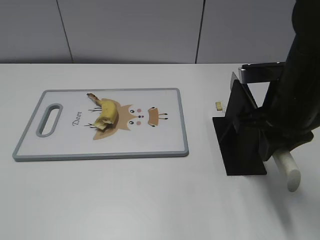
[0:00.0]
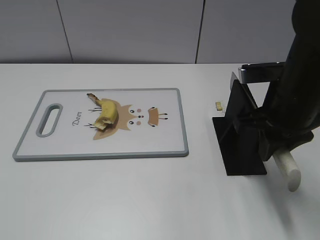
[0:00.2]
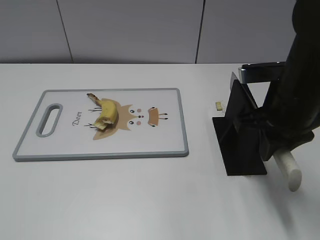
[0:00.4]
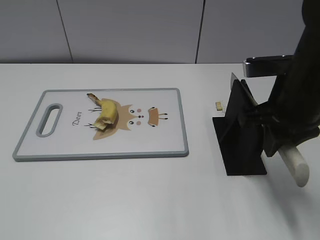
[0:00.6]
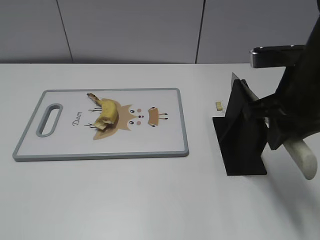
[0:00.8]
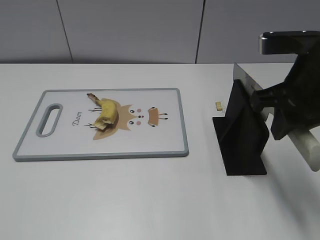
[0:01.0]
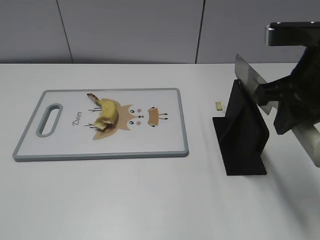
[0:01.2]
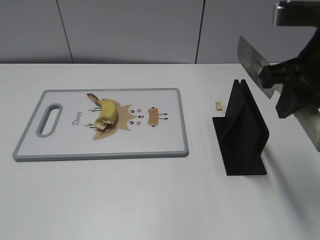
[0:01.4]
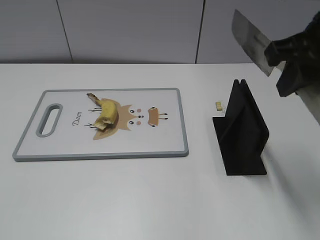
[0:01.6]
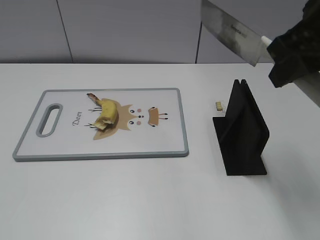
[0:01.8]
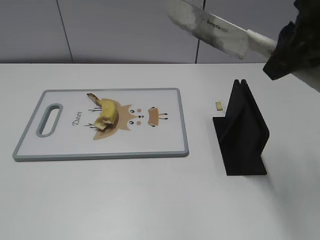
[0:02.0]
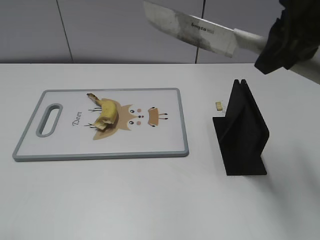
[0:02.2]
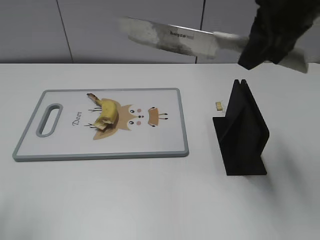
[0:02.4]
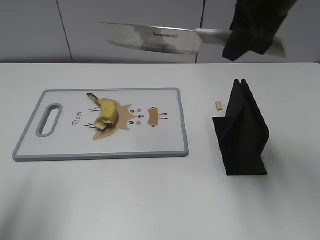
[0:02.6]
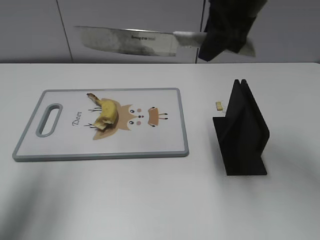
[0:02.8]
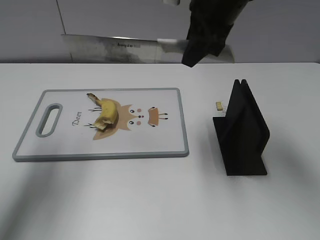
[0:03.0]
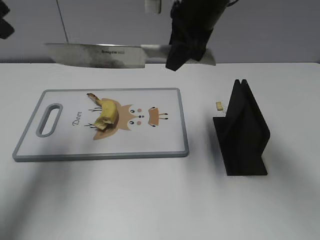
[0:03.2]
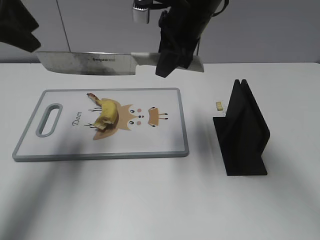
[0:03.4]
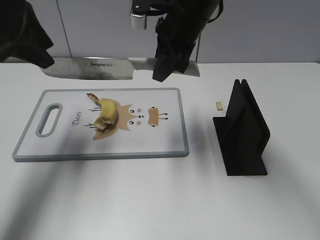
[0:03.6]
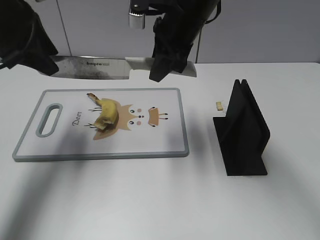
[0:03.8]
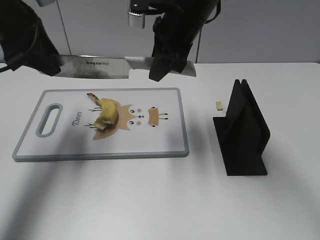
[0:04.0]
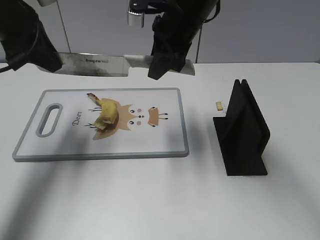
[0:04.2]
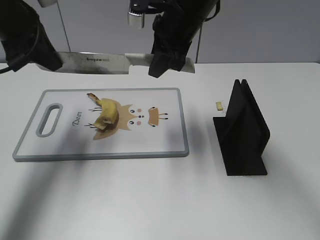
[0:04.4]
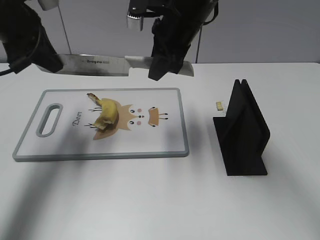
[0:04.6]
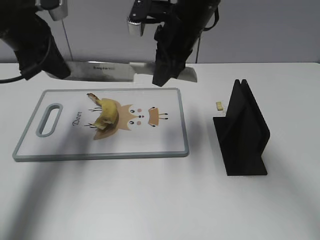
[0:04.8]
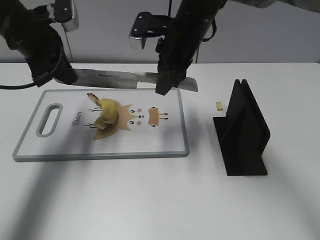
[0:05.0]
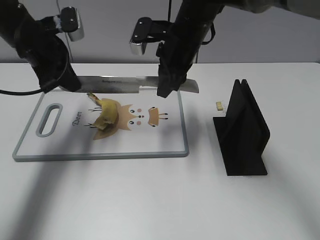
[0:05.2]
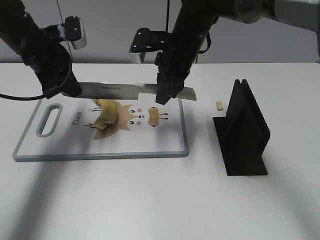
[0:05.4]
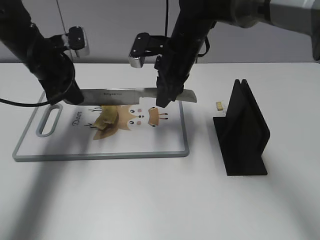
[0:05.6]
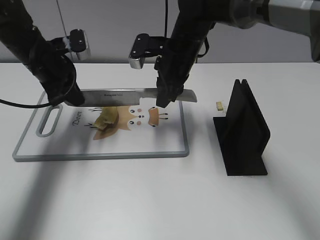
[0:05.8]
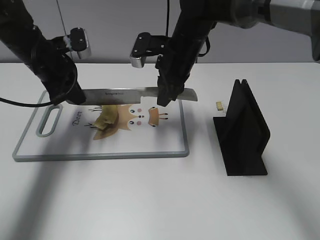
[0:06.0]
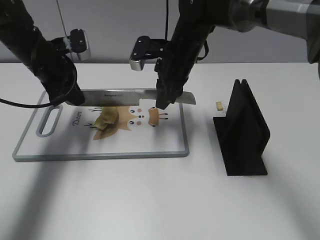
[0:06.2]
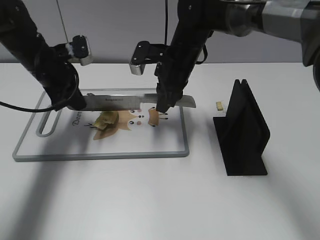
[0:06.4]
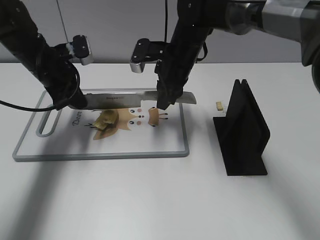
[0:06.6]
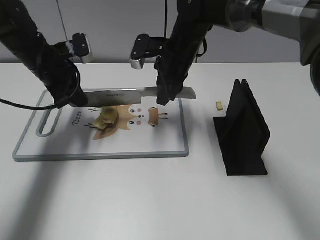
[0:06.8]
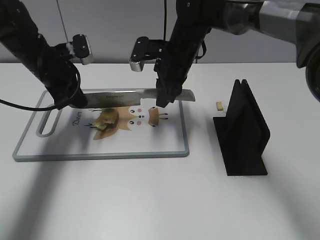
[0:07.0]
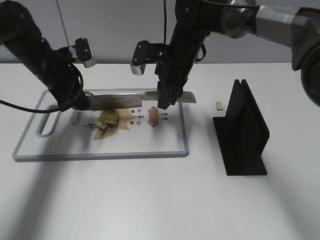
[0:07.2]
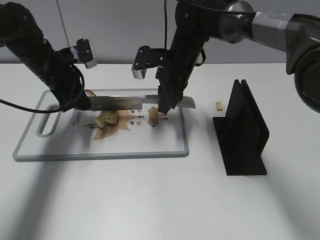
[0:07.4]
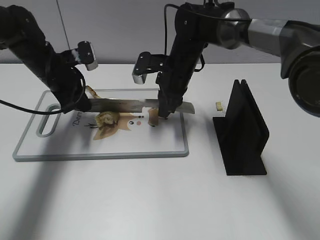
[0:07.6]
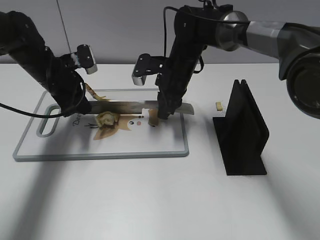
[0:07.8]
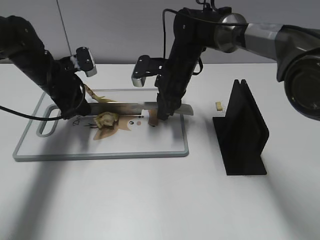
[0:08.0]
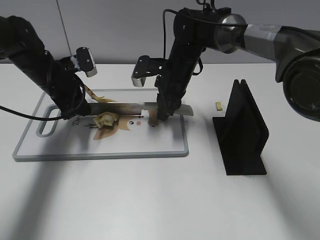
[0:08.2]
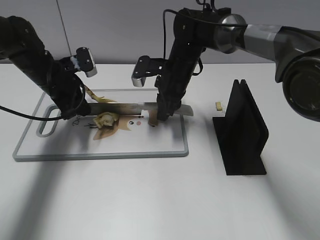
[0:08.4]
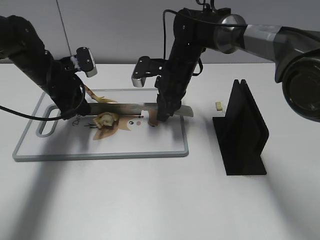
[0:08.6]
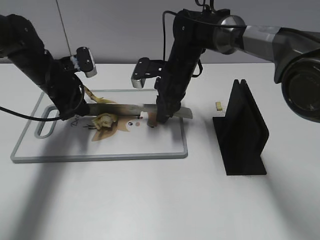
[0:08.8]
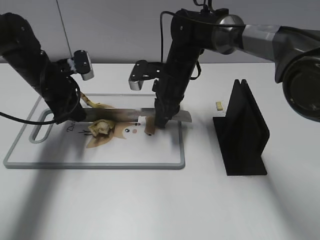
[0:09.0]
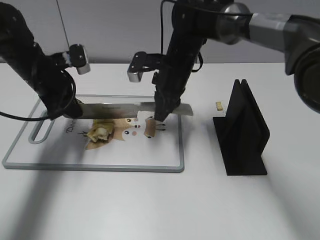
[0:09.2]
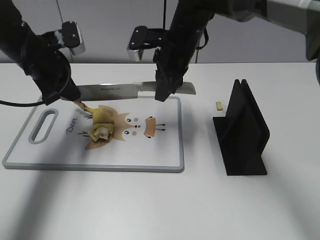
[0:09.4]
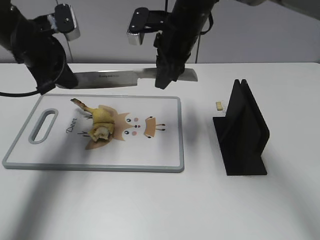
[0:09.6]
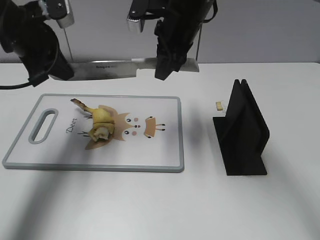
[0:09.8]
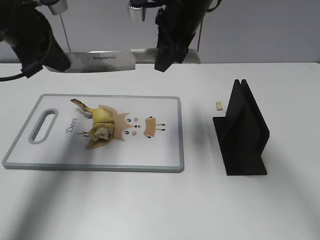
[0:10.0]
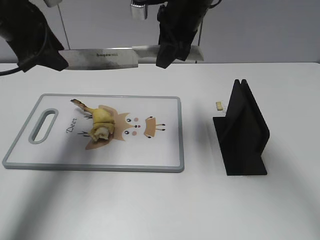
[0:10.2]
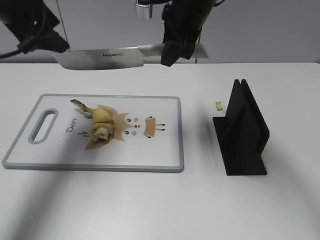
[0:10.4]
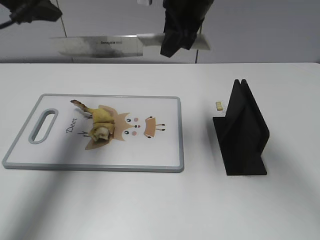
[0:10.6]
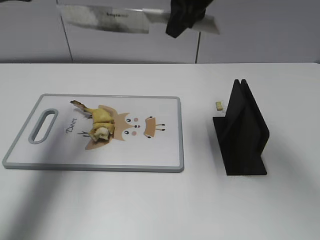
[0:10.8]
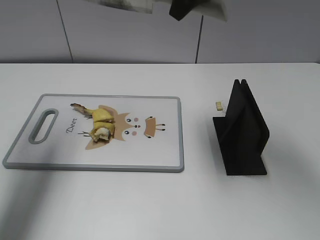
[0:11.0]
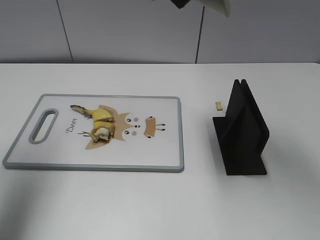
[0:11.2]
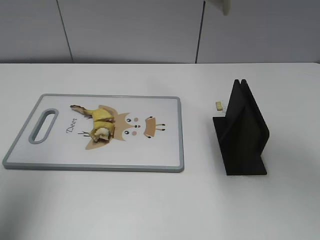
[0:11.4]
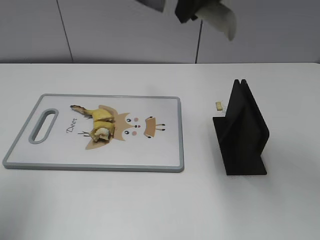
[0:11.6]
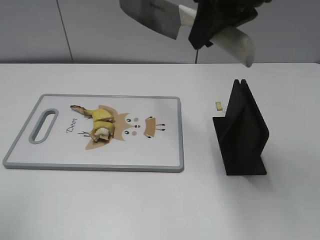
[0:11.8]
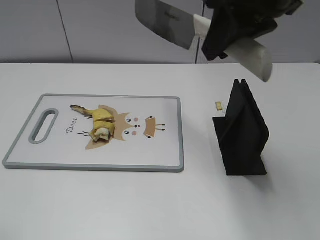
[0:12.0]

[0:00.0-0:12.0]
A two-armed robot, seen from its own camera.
Task of the whole recording: cut banana.
Step, 0:02.0 to 0:06.8: Lift the knife with your right hand.
0:00.0 to 0:01.6: The right gripper heads upward, covering some 10 cm.
0:01.6 to 0:03.0: The right gripper shifts about 15 cm forward and to the left. Meanwhile the left gripper heads forward, covering about 25 cm.
0:03.0 to 0:04.4: The right gripper shifts about 5 cm to the left; the left gripper shifts roughly 15 cm forward, downward and to the right, and closes its fingers.
0:04.4 to 0:06.0: Both grippers move downward, about 10 cm.
0:06.0 to 0:07.6: The right gripper goes some 5 cm downward.
0:09.0 to 0:10.4: The two grippers go about 15 cm upward. The left gripper opens.
0:10.4 to 0:12.0: The left gripper shifts some 25 cm backward. Meanwhile the right gripper shifts approximately 15 cm backward, upward and to the right.

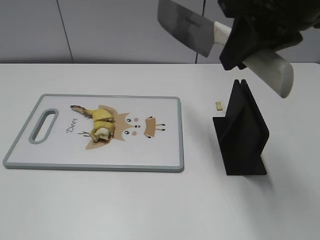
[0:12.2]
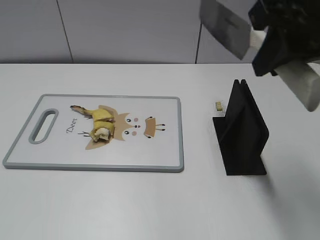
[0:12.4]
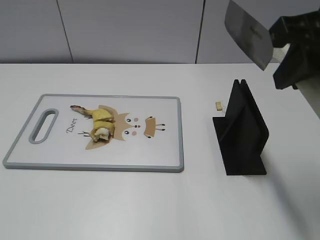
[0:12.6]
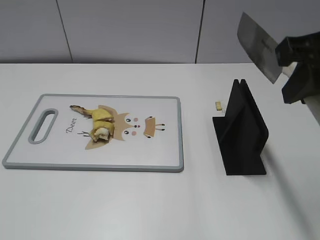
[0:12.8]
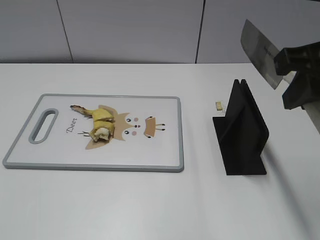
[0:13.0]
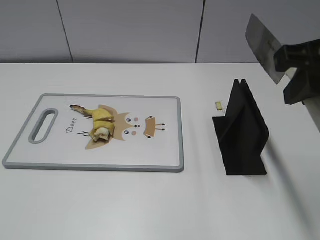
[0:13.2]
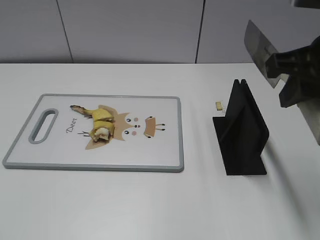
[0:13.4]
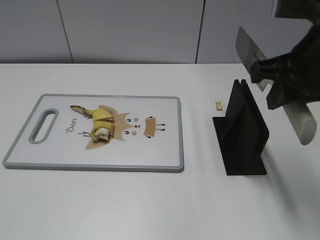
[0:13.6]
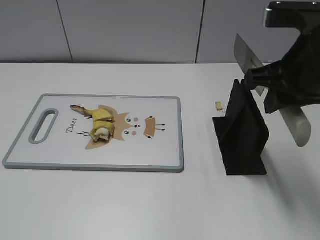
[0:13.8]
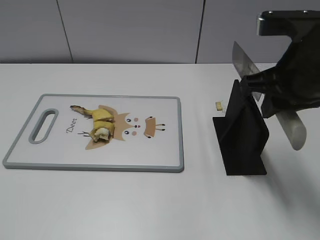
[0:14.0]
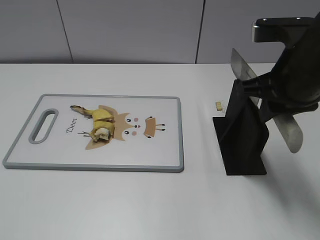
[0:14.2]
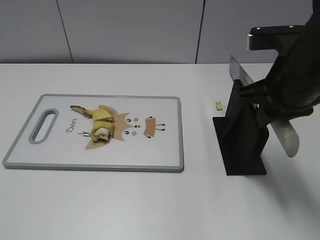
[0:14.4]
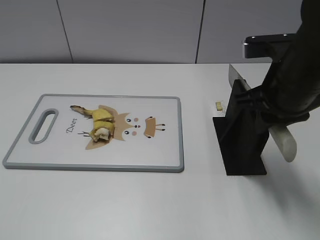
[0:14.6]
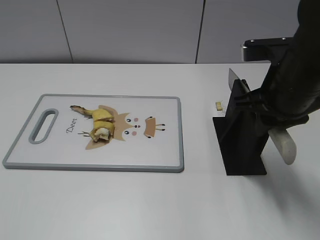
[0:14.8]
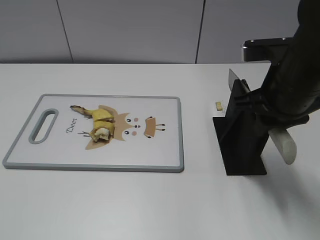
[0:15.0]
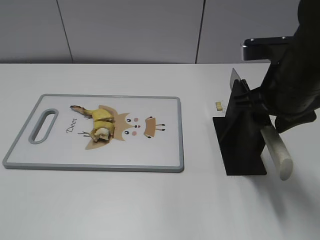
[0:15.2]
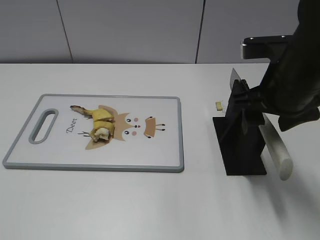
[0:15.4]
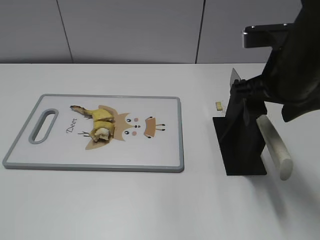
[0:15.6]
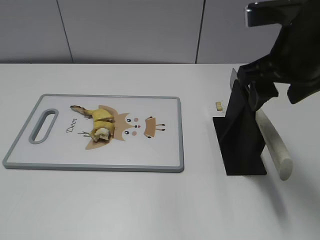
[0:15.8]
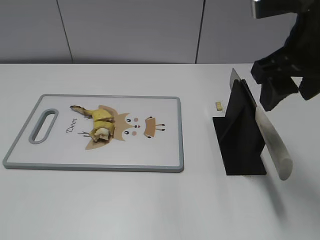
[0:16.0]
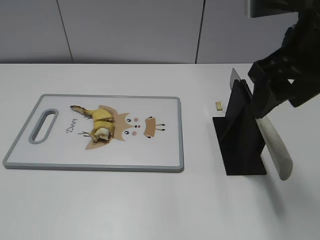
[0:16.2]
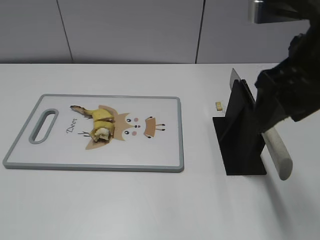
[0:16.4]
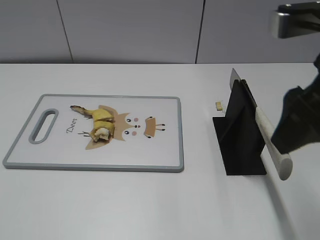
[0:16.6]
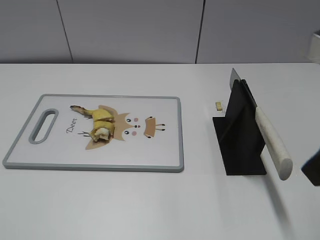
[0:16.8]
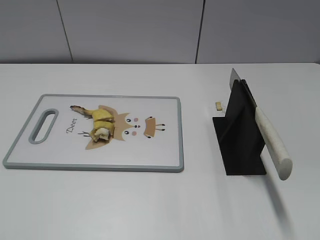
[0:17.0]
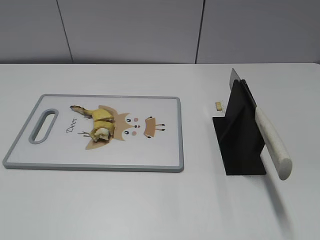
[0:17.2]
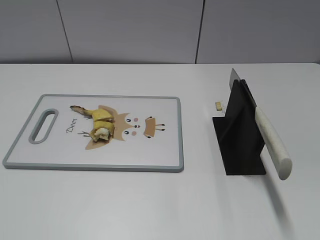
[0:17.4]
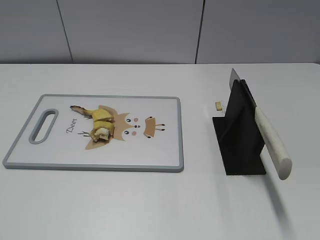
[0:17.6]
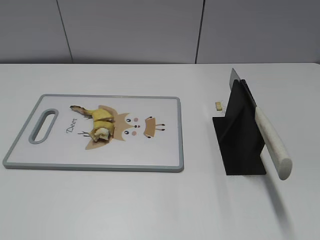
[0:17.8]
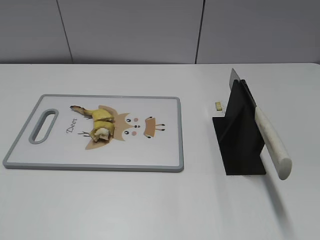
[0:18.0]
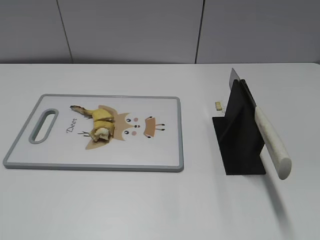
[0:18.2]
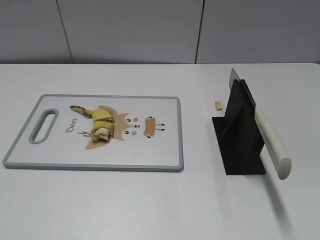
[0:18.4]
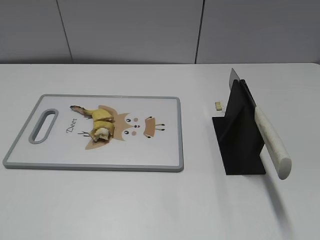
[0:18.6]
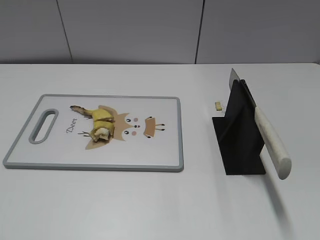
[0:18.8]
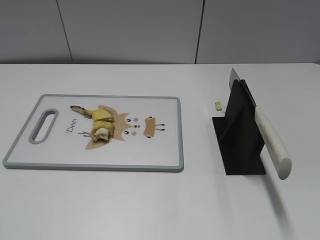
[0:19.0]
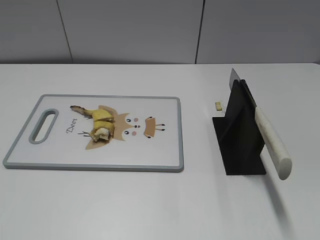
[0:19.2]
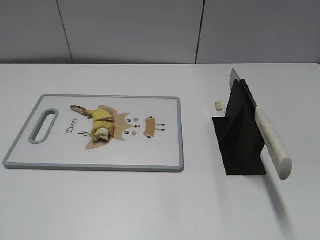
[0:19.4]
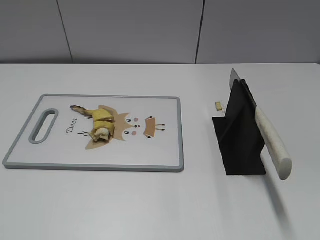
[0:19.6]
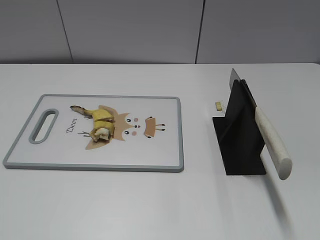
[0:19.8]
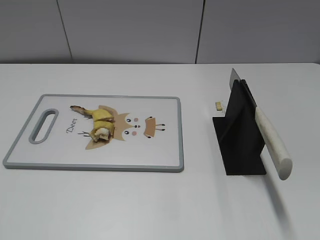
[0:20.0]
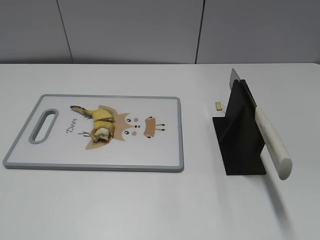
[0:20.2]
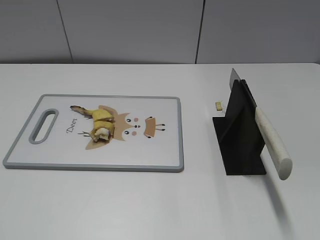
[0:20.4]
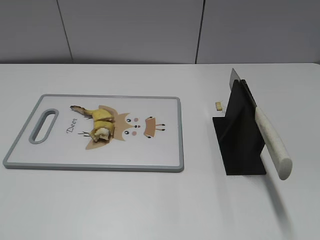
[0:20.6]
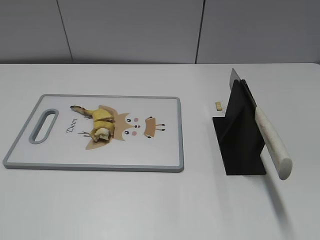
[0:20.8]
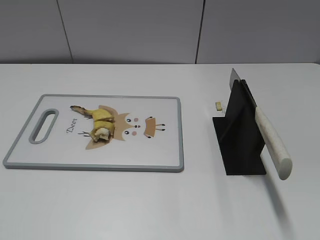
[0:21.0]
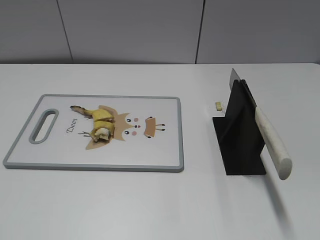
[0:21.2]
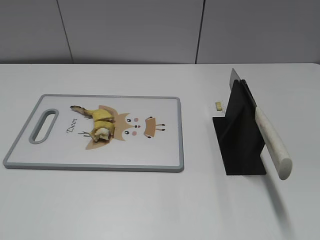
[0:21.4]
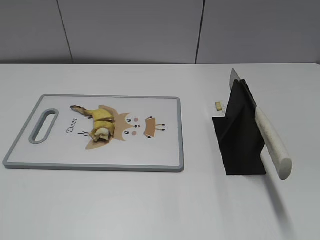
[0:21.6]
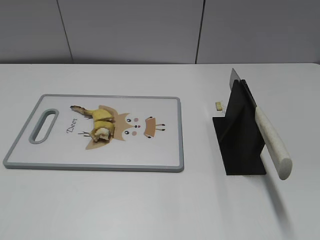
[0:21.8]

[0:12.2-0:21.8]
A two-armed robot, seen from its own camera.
Task of the whole recording: cut banana.
Step, 0:12.8 to 0:14.0: Lift the knife with your right hand.
Step, 0:14.2 to 0:20.2: Place the knife on the storage rack with your right hand.
0:12.2 to 0:13.8: The left gripper goes some 5 cm backward, while the right gripper shifts approximately 10 cm downward.
0:13.8 to 0:15.4: The right gripper shifts by roughly 5 cm, and opens up.
0:15.4 to 0:17.0: The right gripper is displaced backward and upward by roughly 15 cm.
0:20.2 to 0:21.8: The two grippers keep their place.
